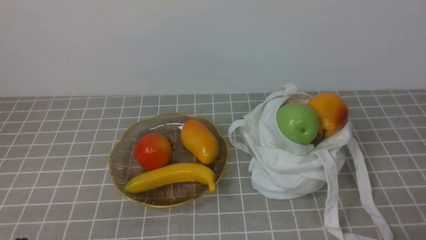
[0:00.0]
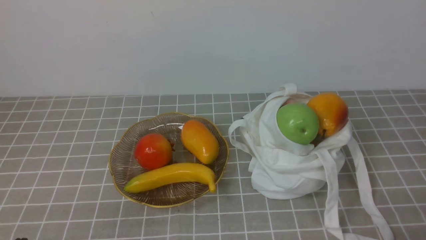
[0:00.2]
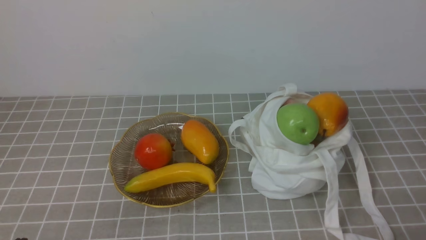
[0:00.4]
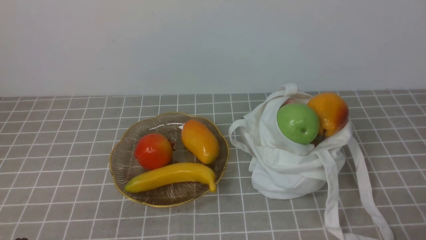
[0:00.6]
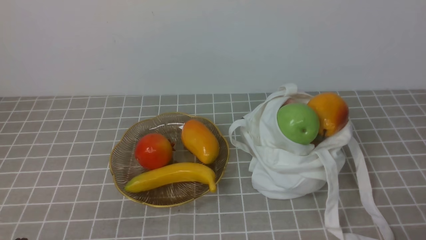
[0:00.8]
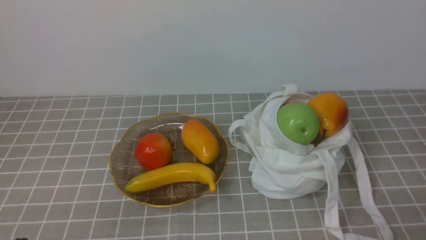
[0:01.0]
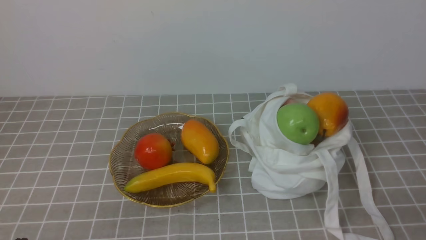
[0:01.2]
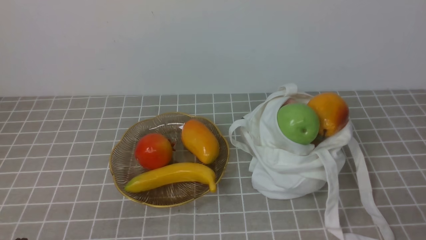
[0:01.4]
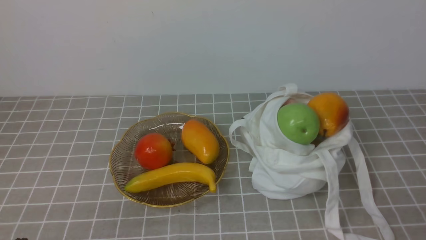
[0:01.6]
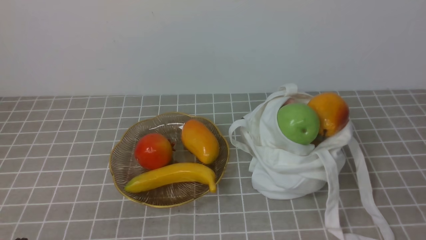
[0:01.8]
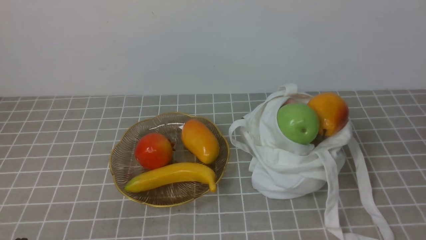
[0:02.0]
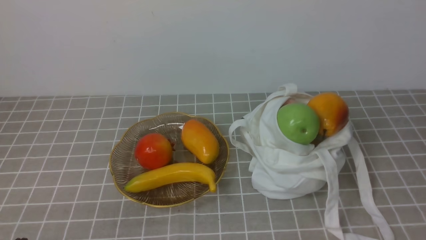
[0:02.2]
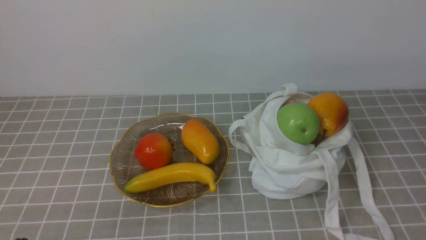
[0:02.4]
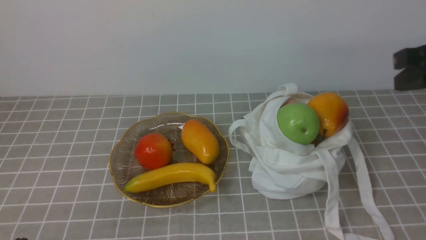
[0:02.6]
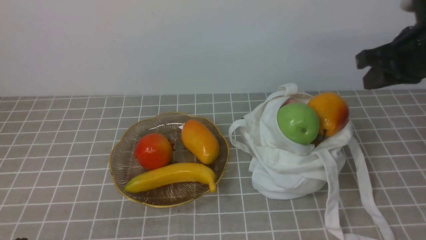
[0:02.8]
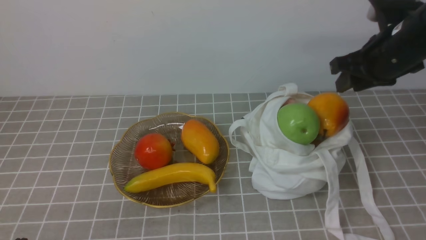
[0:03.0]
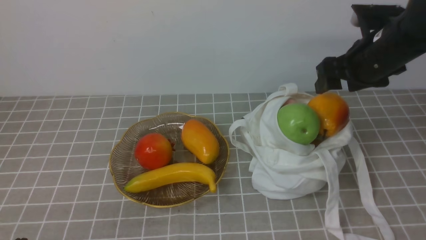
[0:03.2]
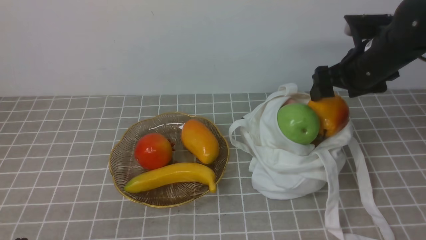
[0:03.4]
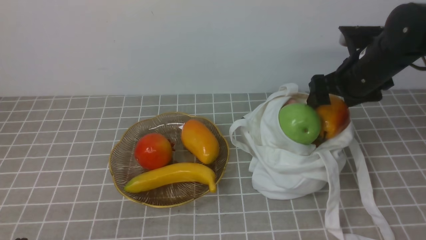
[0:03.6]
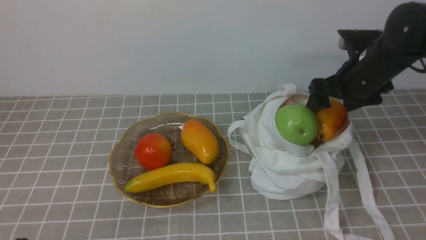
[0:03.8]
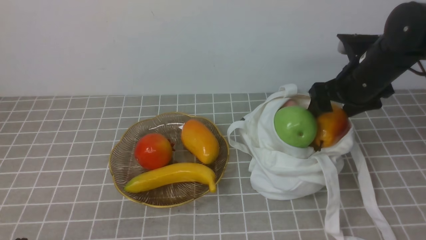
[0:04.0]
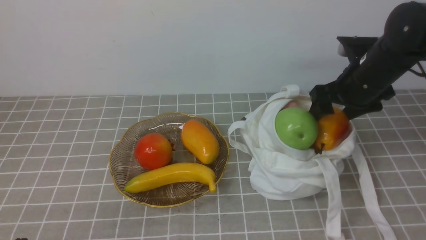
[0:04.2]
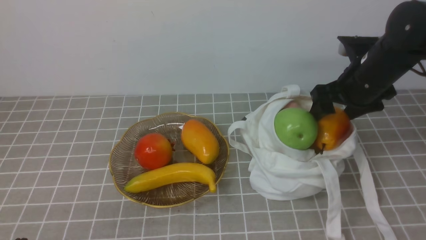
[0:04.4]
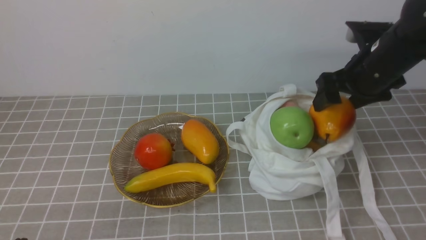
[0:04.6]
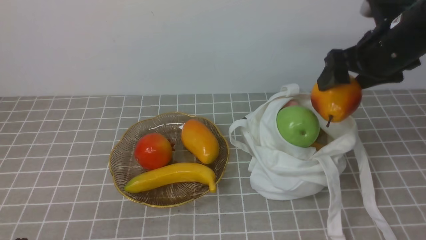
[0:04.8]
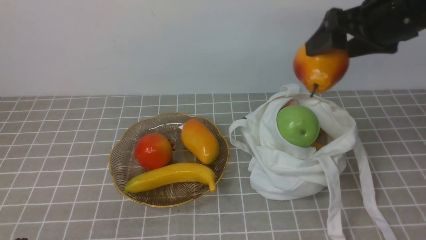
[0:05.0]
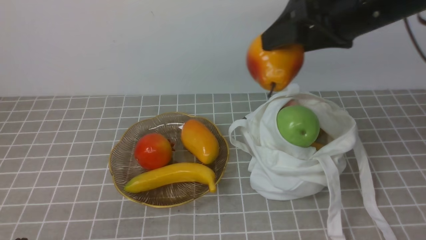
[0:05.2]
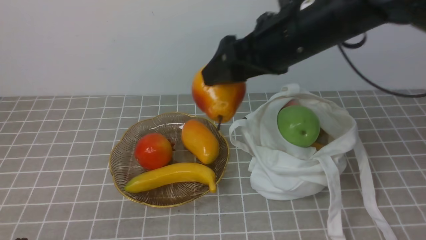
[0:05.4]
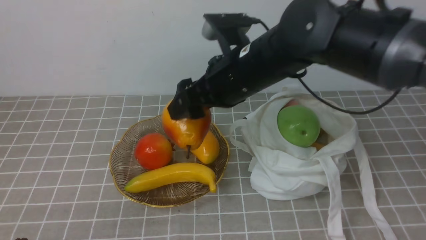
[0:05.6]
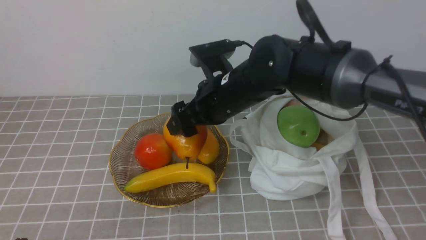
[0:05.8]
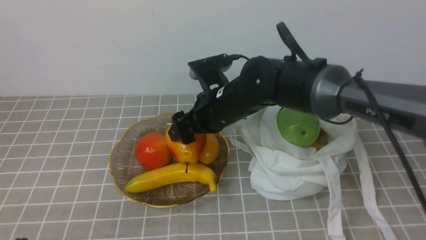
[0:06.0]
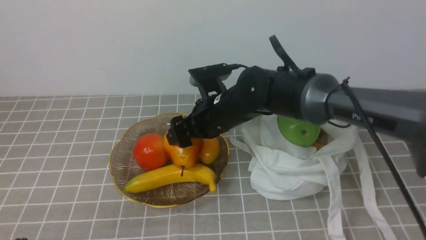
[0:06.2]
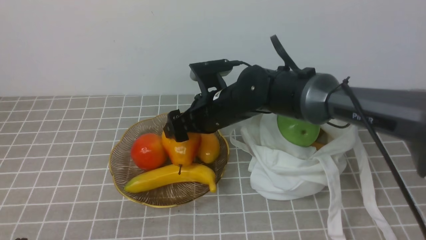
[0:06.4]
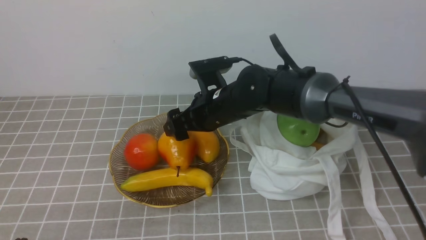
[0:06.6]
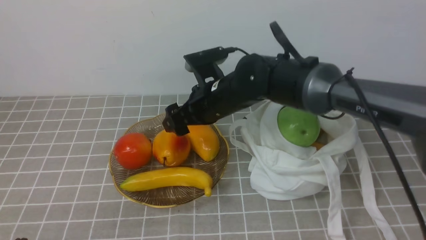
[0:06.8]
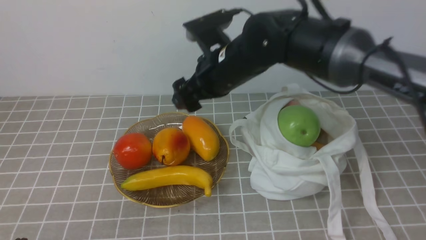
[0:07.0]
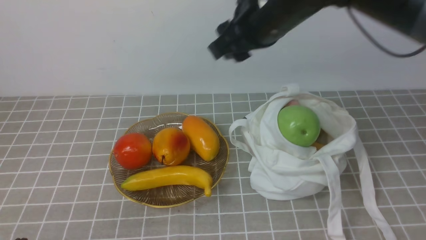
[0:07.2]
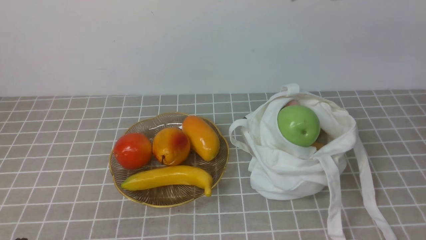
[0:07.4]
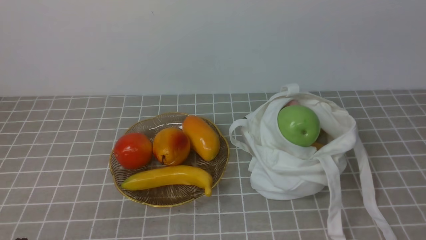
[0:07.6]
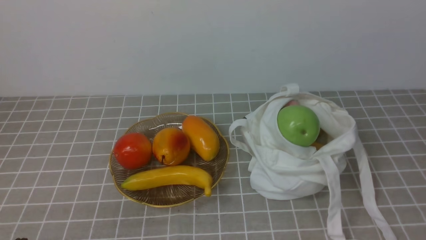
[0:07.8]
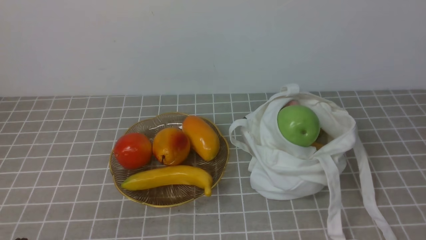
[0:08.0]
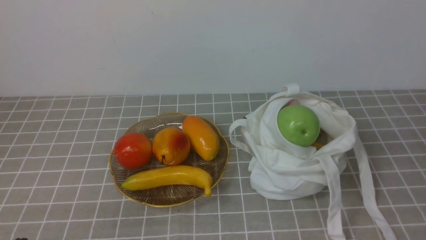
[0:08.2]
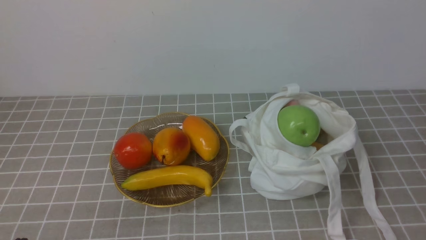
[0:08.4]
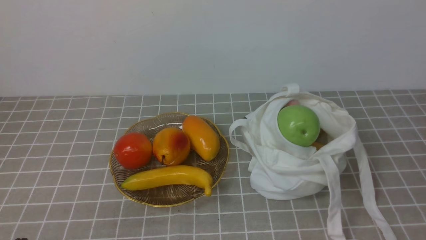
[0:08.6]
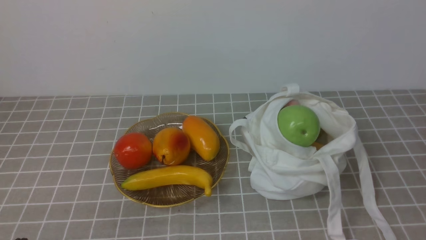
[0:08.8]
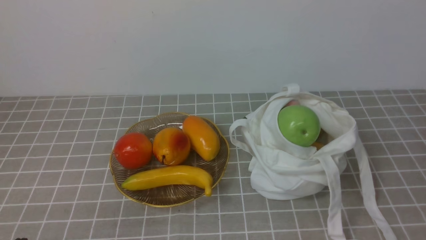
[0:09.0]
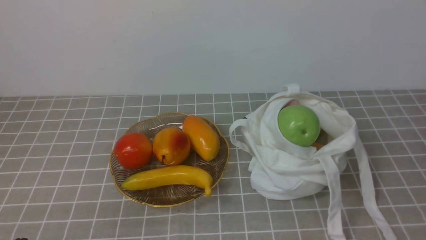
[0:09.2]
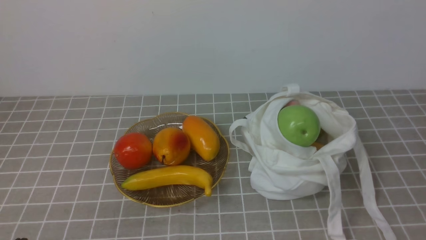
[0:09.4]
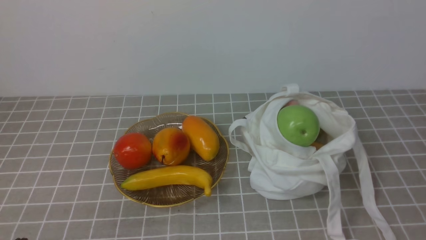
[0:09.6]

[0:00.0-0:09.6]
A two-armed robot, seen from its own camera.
Step, 0:00.0 to 0:04.8: use the right arm to grab a pear from the bag.
Step, 0:05.0 to 0:06.6: use the right arm to put the pear into the empty plate on the left.
0:01.6 to 0:03.2: The right gripper shifts approximately 35 cm forward, and opens up.
0:03.2 to 0:04.8: The right gripper moves upward, approximately 5 cm.
0:04.8 to 0:06.4: The right gripper shifts about 25 cm to the left and downward.
0:06.4 to 0:08.0: The right gripper travels backward, to the right and upward by some 50 cm, and closes up.

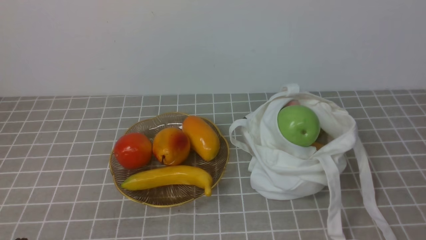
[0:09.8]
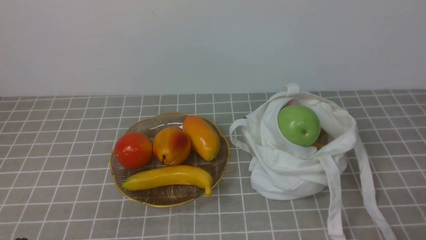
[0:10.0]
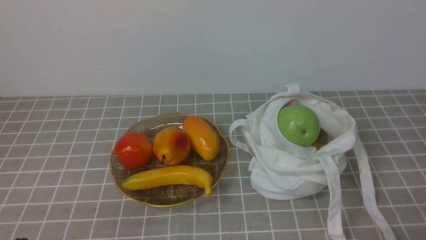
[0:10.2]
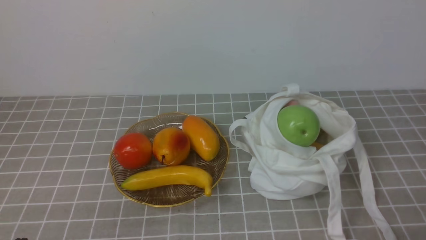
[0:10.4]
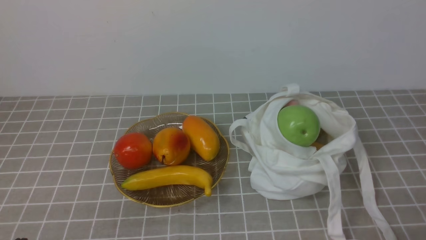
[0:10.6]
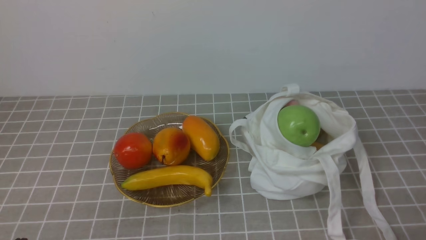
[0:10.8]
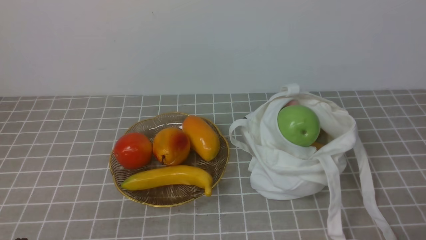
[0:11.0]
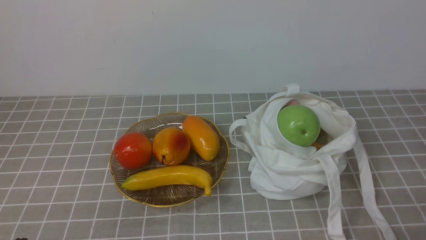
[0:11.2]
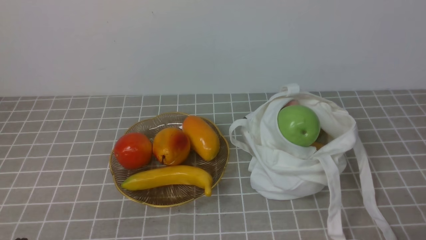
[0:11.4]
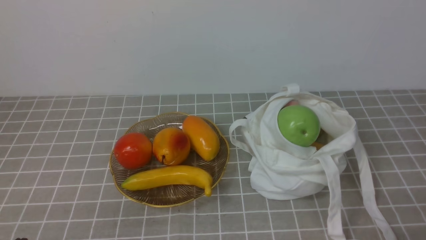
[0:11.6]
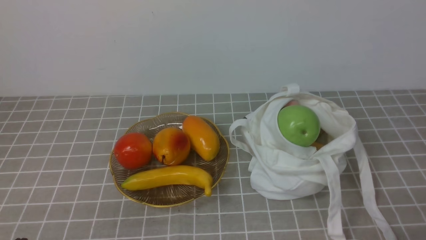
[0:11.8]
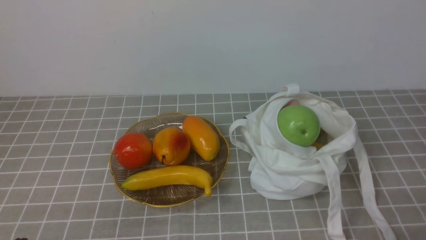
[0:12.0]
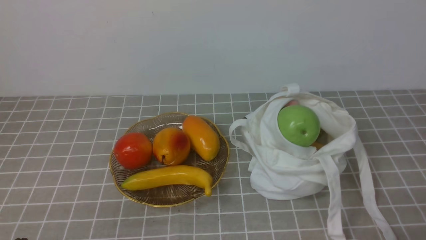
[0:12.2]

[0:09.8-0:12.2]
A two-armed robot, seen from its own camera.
0:11.0 to 0:12.2: Neither gripper changes place.

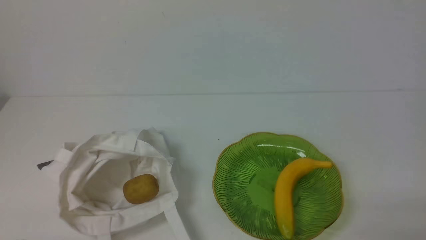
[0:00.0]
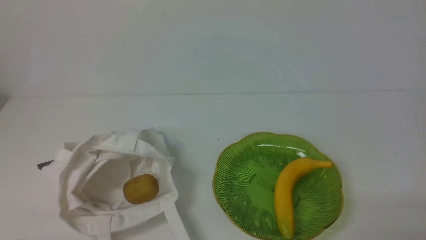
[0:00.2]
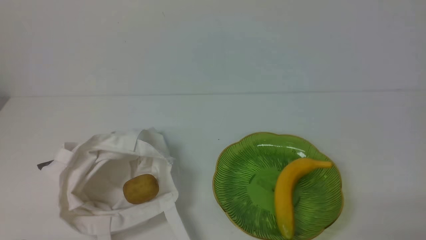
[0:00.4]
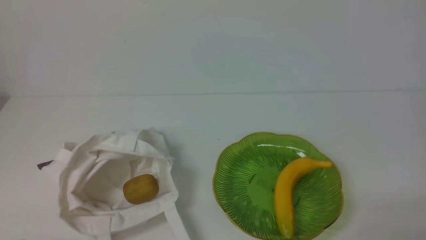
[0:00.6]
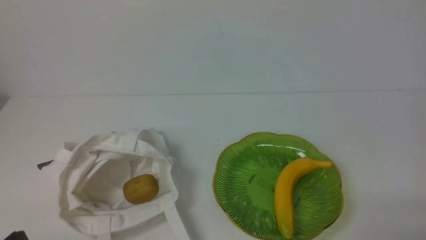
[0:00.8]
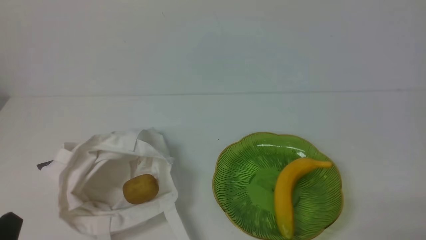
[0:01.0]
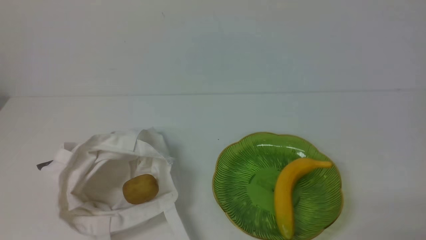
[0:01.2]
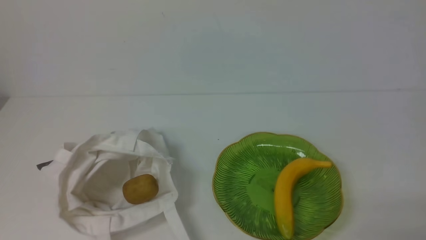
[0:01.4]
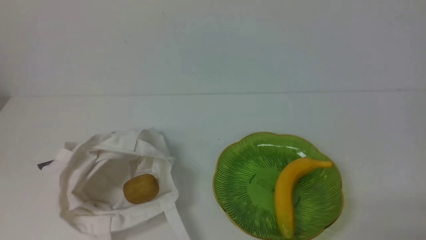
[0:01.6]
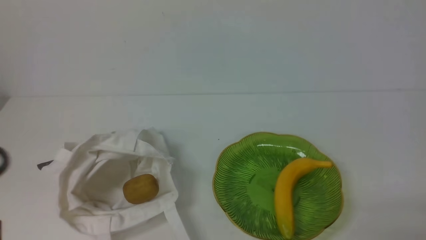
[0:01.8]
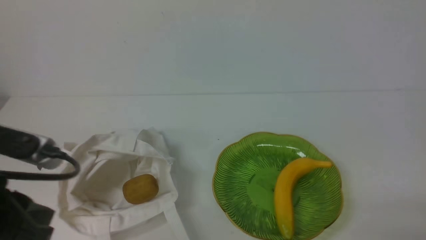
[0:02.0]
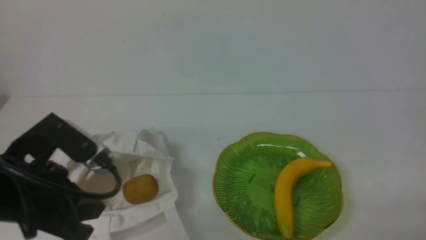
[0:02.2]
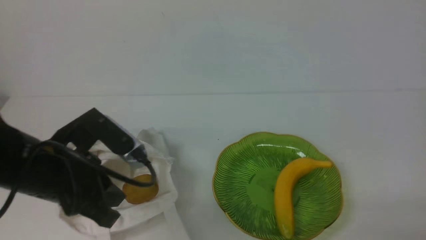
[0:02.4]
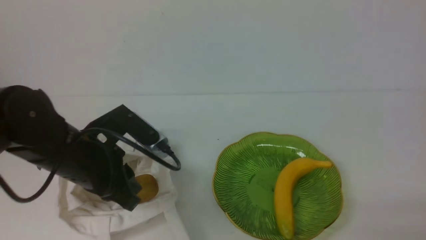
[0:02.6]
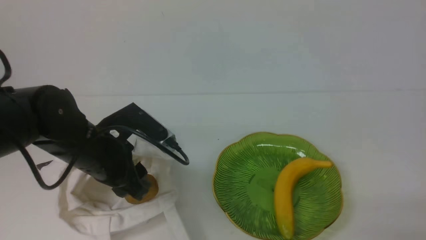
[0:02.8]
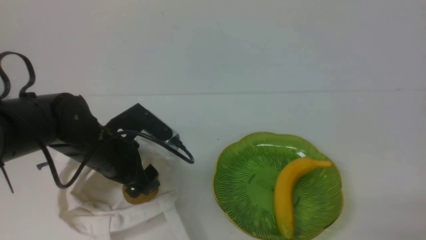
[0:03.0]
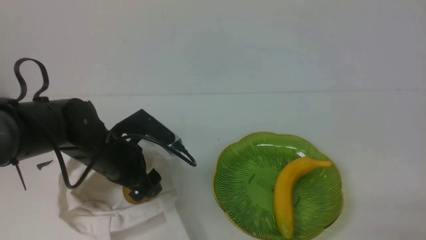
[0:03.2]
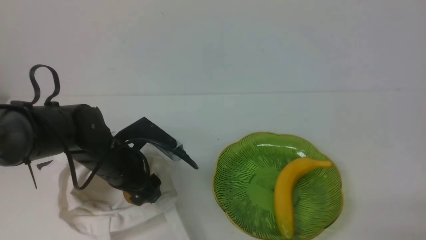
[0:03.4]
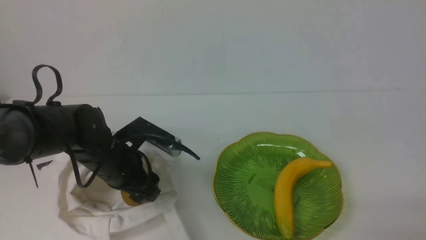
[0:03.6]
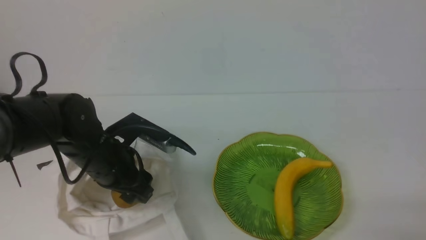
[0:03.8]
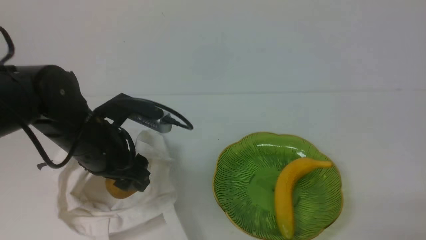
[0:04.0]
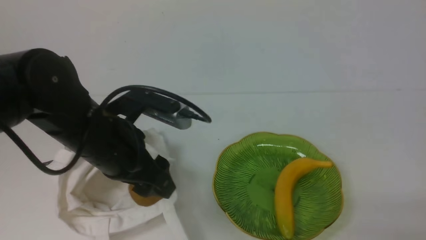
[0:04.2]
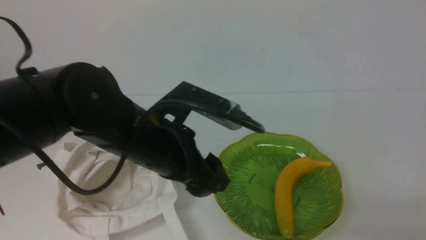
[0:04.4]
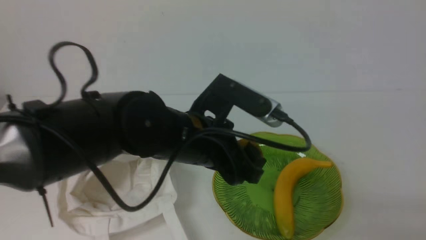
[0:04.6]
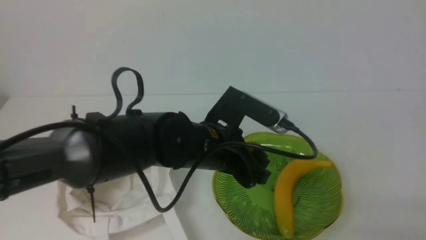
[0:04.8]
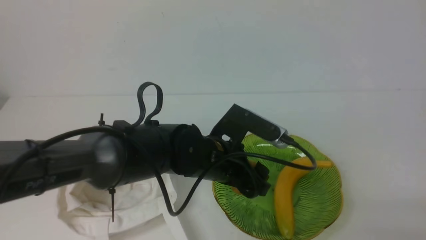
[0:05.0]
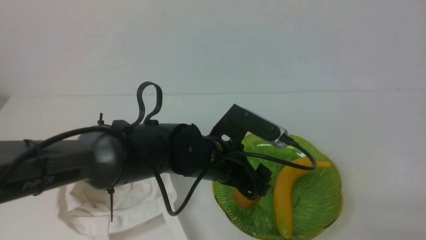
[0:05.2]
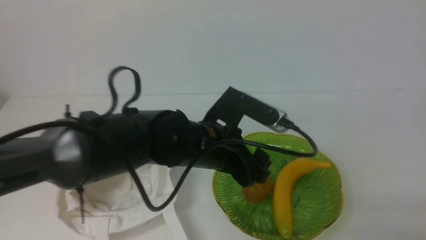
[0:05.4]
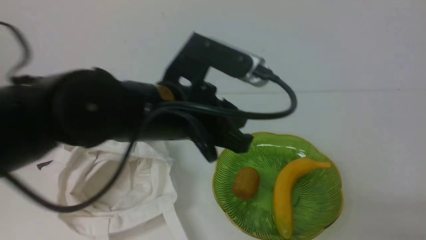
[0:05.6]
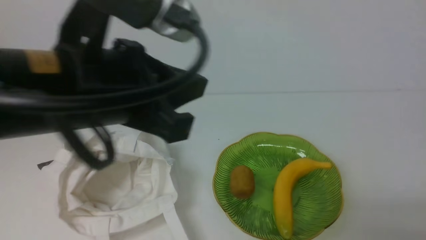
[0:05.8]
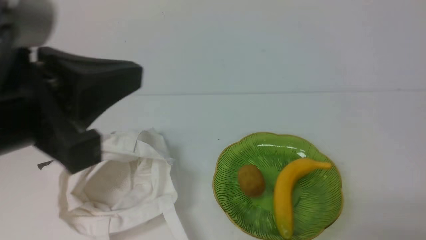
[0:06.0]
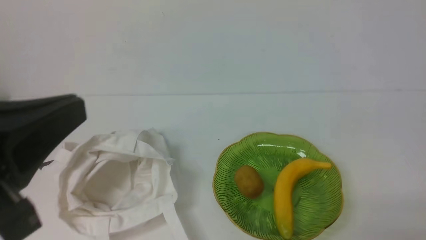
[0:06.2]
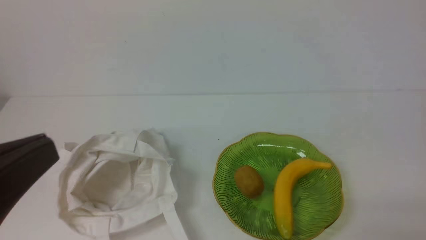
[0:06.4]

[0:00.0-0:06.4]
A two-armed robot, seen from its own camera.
Step, 0:00.0 to 0:03.8: use the left arm to grab a kiwi from the bag.
Step, 0:04.0 to 0:05.0: use the left arm to put the kiwi into the empty plate on the right.
0:01.6 to 0:03.2: The left gripper heads forward and downward, covering roughly 25 cm, and opens its fingers.
0:03.2 to 0:04.8: The left gripper heads to the right, covering some 15 cm.
0:04.8 to 0:06.4: The left gripper heads backward, to the left and upward, covering some 30 cm, and closes its fingers.
